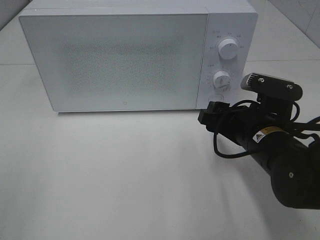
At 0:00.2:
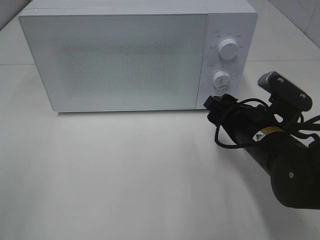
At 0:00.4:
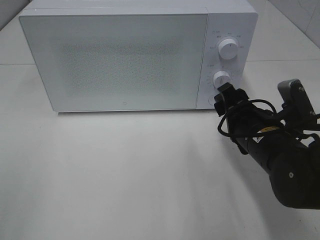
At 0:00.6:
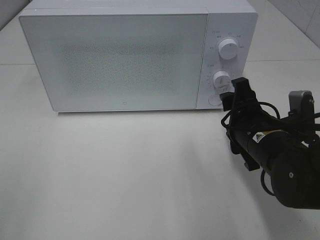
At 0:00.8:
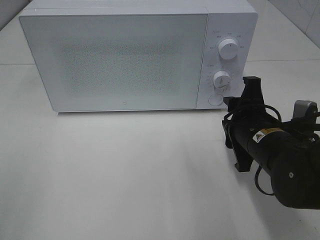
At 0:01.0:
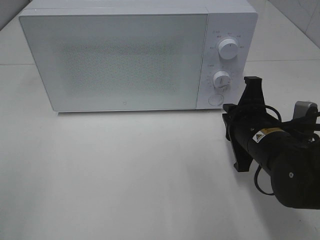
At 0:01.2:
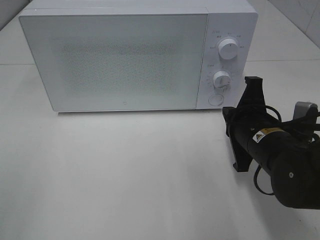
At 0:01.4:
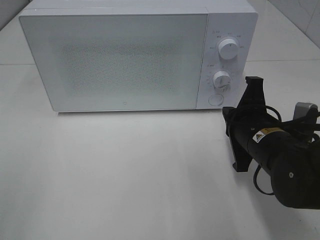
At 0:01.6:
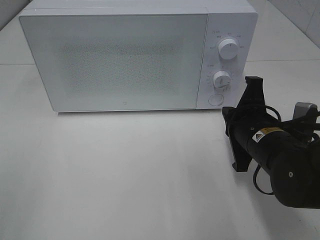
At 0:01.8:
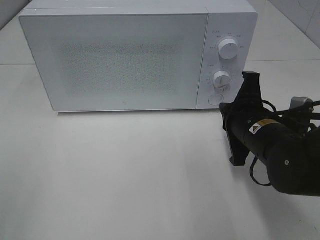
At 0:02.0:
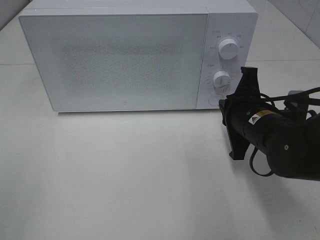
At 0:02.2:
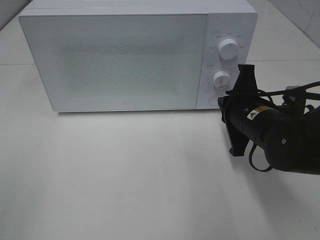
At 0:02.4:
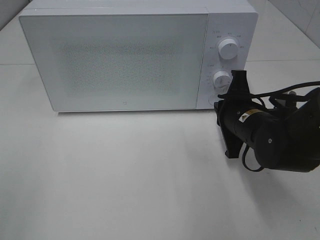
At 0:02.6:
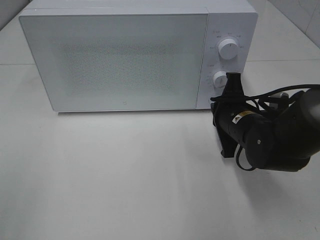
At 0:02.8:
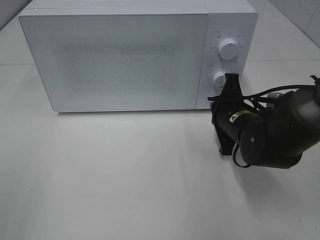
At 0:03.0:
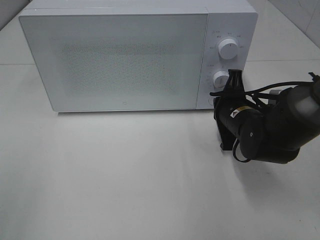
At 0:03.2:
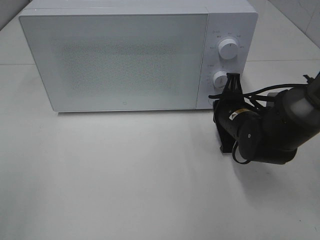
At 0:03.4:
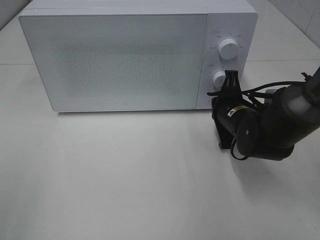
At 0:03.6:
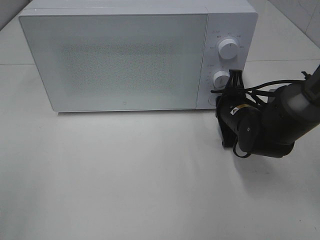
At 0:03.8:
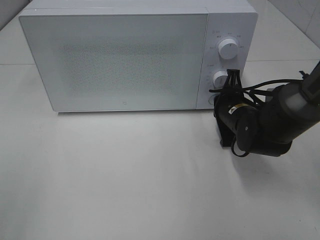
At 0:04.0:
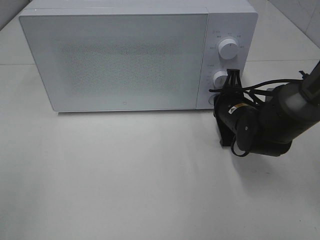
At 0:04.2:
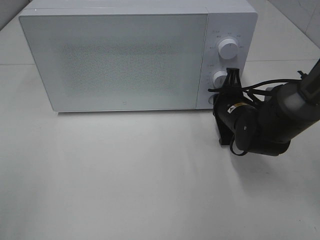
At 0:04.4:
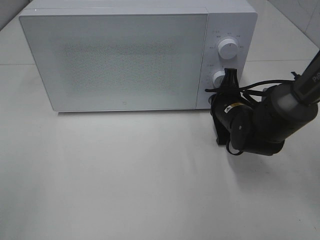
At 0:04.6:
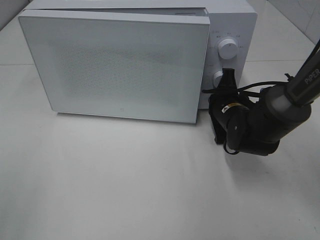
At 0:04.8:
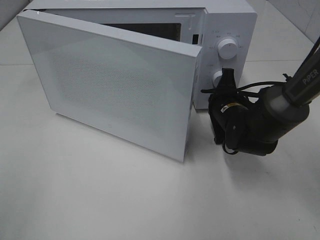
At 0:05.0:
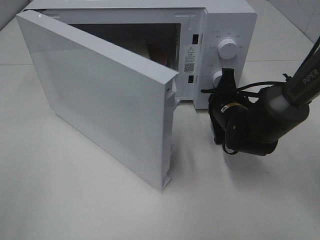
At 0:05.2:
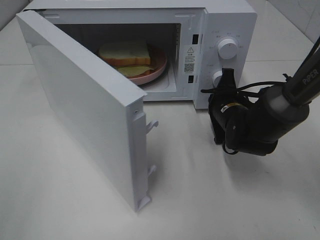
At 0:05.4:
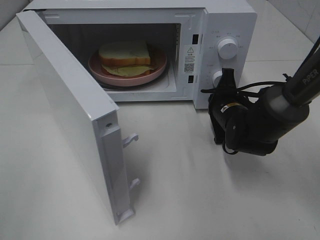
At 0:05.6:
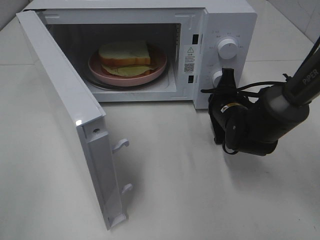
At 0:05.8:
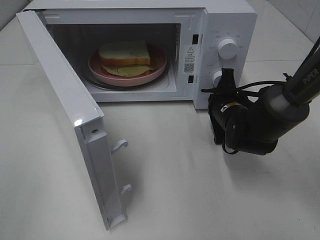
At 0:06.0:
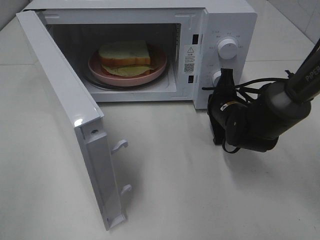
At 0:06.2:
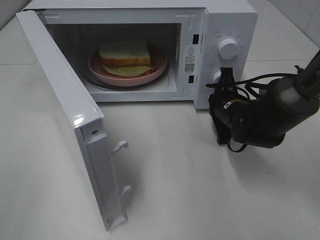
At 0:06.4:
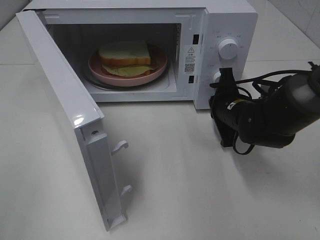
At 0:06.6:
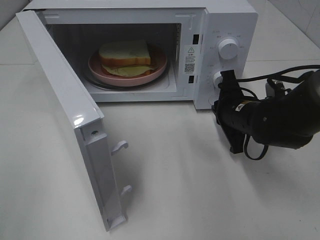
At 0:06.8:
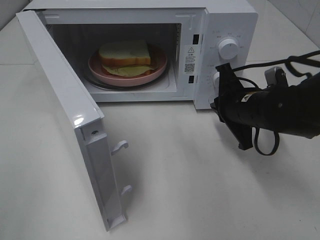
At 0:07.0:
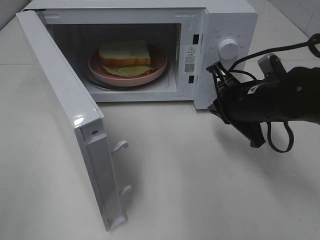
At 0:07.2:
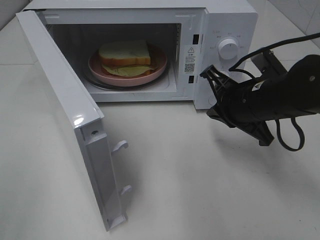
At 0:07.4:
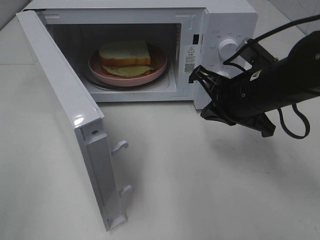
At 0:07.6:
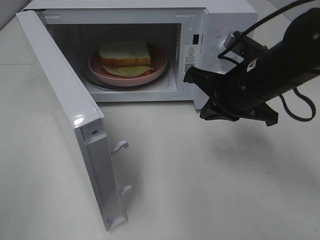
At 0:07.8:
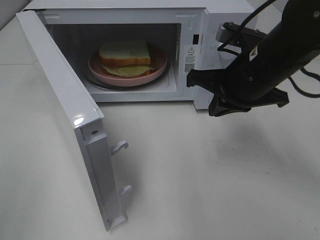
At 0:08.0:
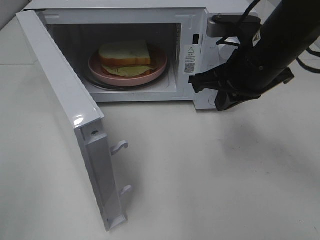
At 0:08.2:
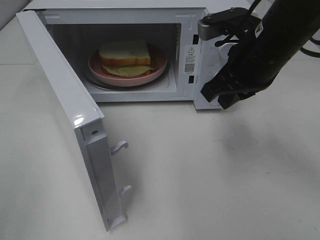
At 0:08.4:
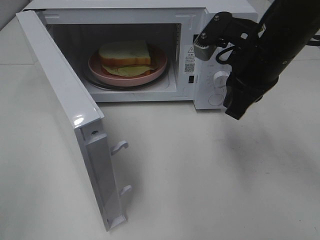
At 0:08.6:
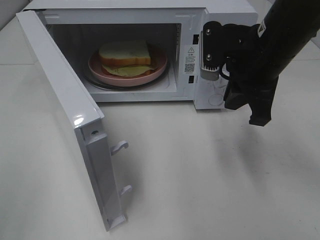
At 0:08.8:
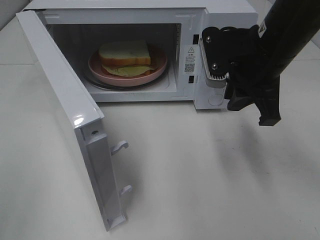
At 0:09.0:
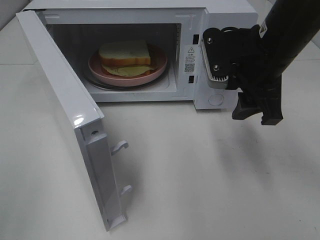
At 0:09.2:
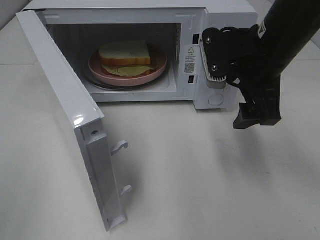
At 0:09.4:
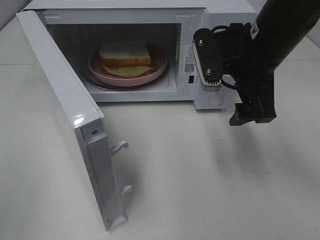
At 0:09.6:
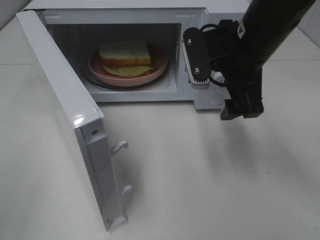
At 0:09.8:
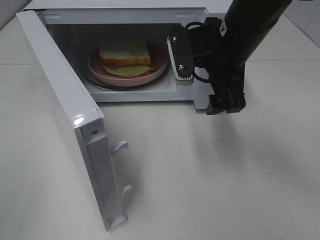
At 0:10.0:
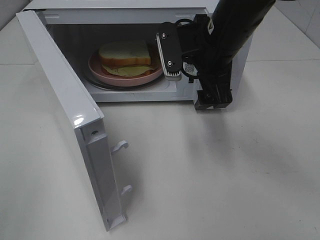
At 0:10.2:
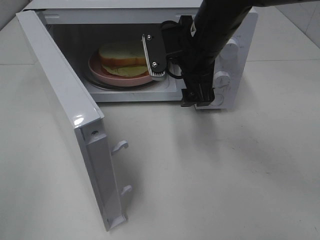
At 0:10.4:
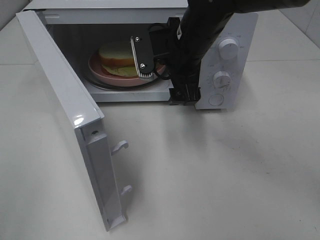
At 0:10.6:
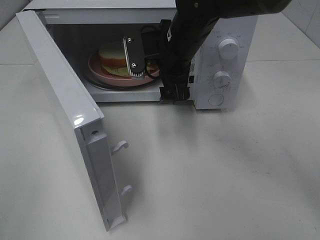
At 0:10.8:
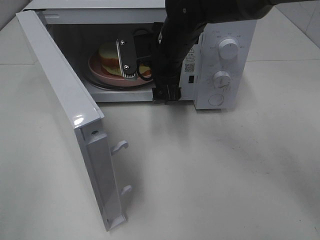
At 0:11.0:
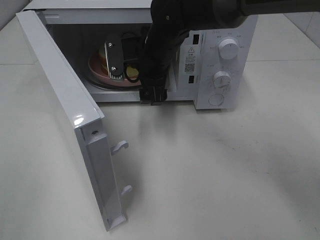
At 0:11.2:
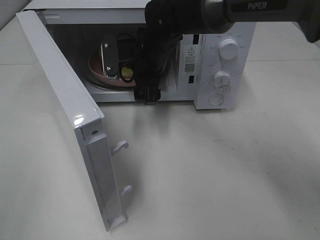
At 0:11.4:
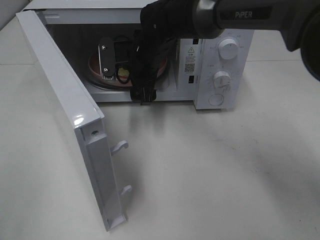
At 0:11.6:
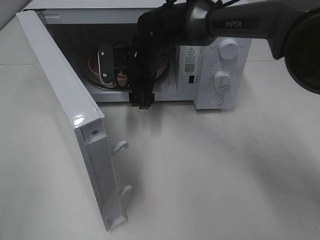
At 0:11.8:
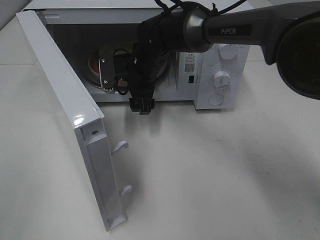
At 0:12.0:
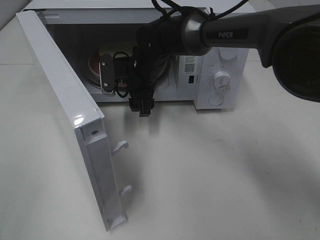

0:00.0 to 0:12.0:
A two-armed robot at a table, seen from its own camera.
Task of the whole recording: Heat Sandwich.
Step, 0:00.0 to 0:06.6: Right hand: press the switch.
0:00.0 to 0:01.6: The right gripper closes its fingers.
0:01.6 to 0:03.0: The right gripper moves forward, roughly 10 cm.
0:03.0 to 0:04.4: The grippers make only small movements.
0:06.0 to 0:07.6: The right gripper moves upward and backward, about 15 cm.
0:07.6 to 0:09.0: The right gripper moves some 5 cm, and opens its fingers.
0:09.0 to 0:10.4: The right gripper moves to the left and forward, some 10 cm.
0:10.4 to 0:12.0: The right gripper shifts approximately 15 cm downward, forward and to the left.

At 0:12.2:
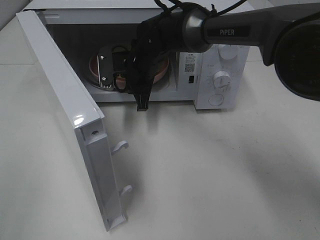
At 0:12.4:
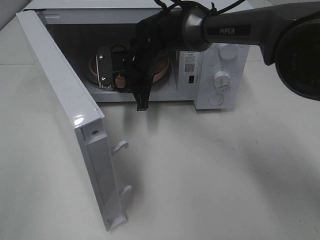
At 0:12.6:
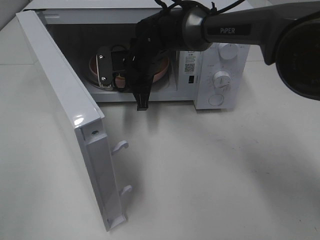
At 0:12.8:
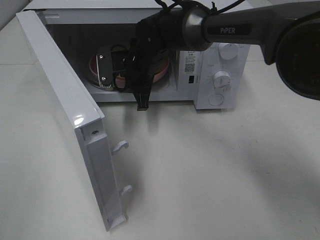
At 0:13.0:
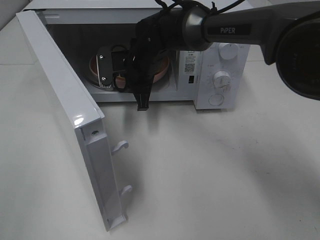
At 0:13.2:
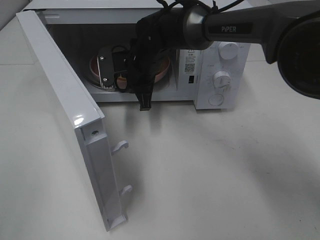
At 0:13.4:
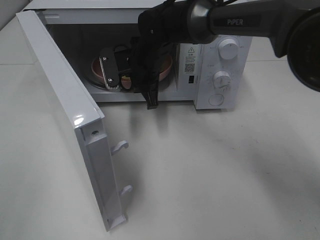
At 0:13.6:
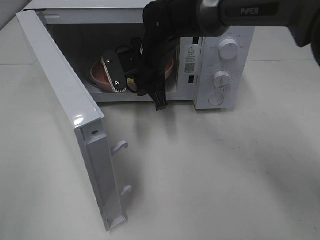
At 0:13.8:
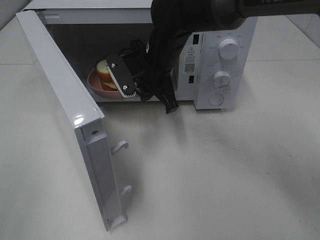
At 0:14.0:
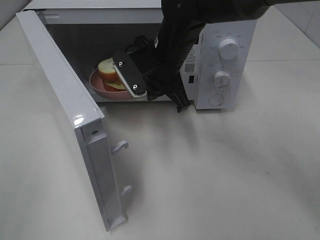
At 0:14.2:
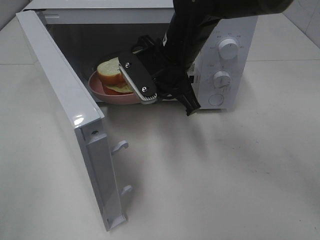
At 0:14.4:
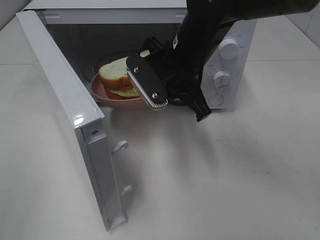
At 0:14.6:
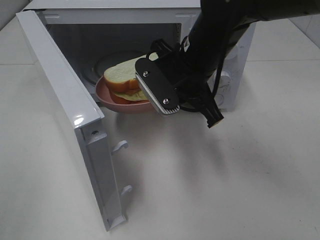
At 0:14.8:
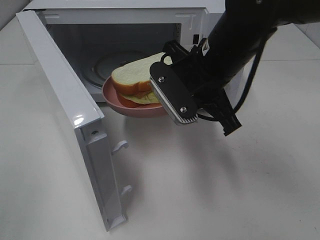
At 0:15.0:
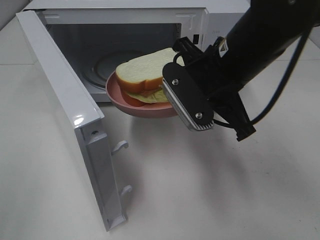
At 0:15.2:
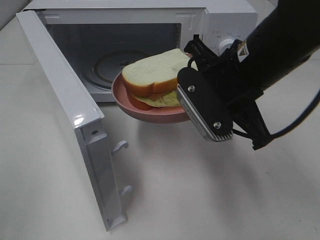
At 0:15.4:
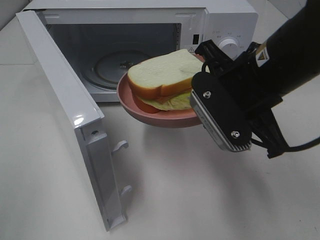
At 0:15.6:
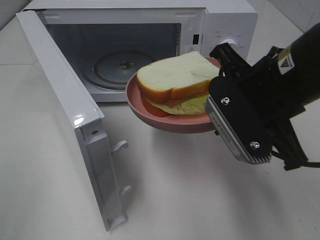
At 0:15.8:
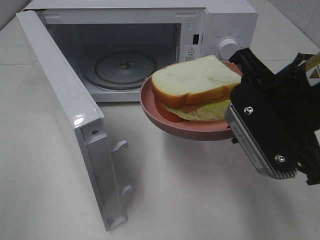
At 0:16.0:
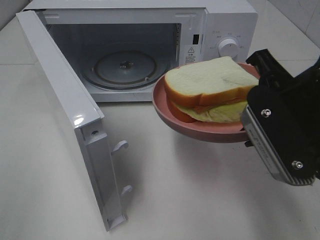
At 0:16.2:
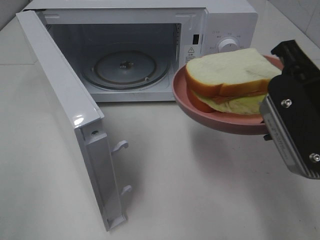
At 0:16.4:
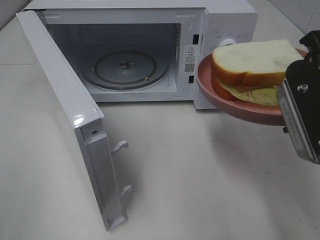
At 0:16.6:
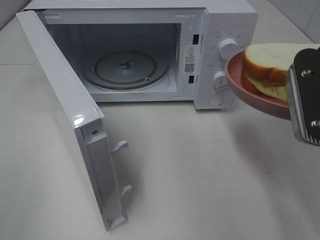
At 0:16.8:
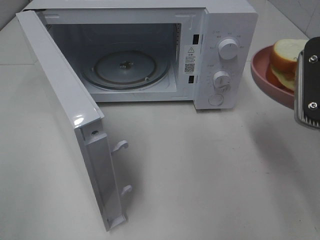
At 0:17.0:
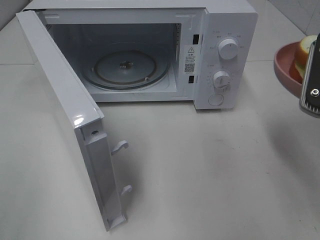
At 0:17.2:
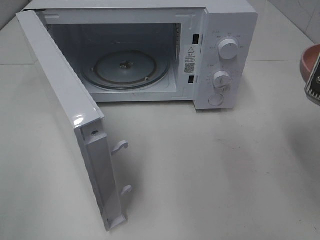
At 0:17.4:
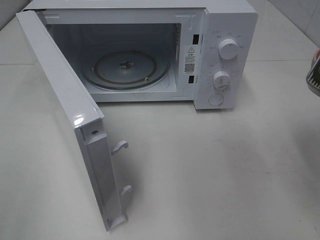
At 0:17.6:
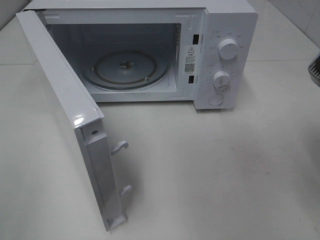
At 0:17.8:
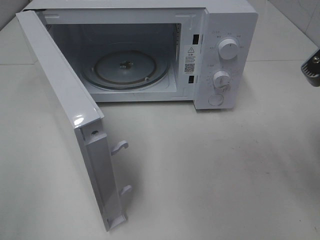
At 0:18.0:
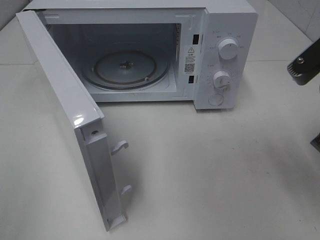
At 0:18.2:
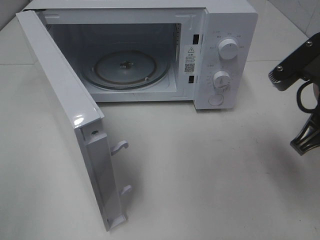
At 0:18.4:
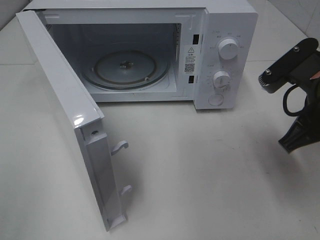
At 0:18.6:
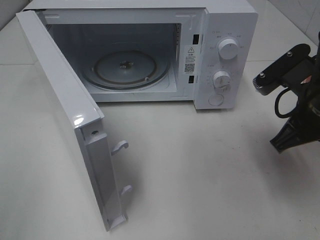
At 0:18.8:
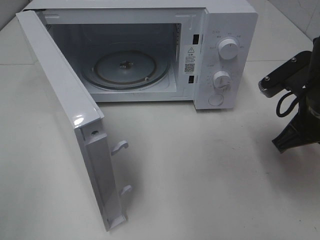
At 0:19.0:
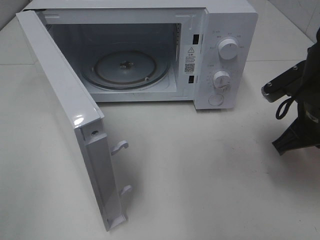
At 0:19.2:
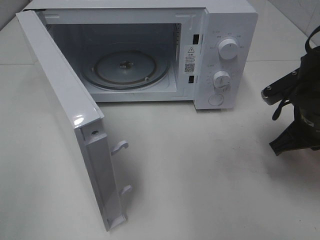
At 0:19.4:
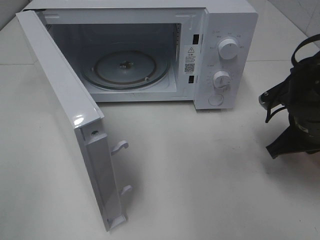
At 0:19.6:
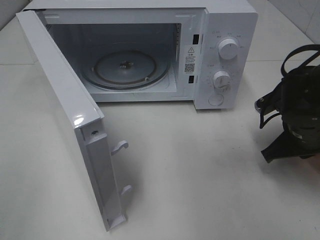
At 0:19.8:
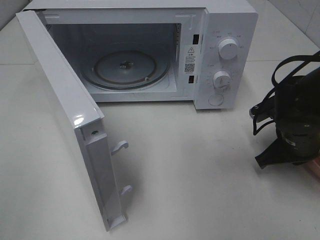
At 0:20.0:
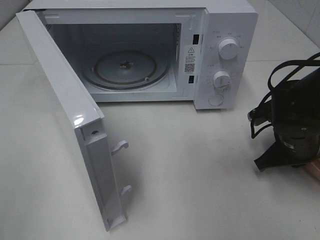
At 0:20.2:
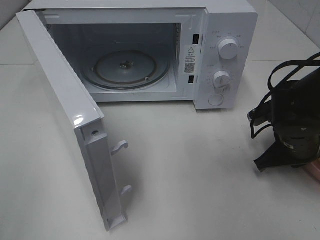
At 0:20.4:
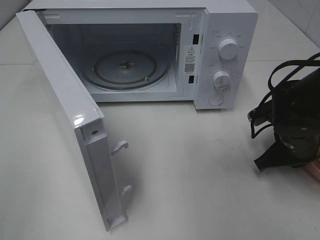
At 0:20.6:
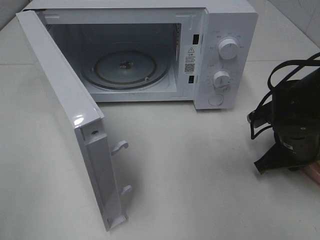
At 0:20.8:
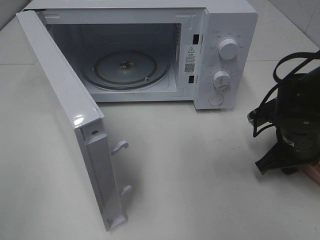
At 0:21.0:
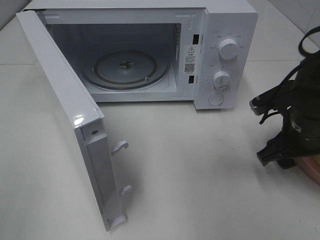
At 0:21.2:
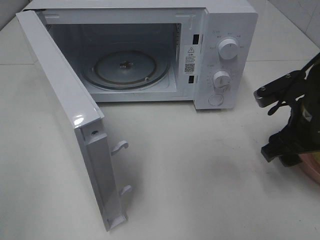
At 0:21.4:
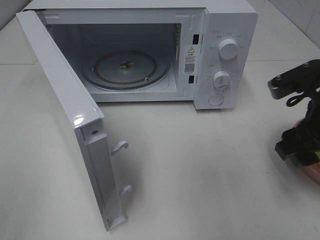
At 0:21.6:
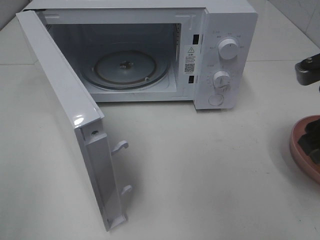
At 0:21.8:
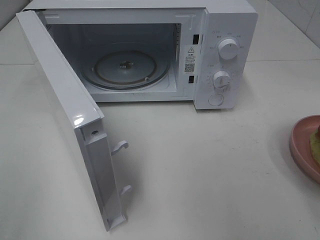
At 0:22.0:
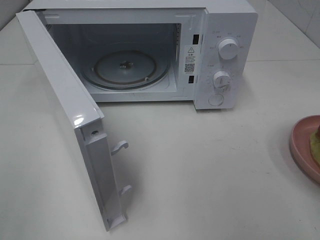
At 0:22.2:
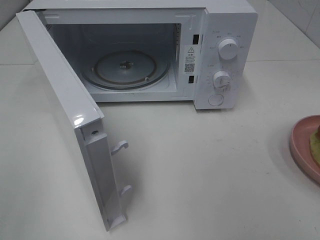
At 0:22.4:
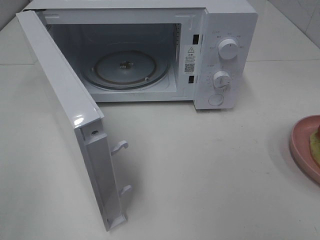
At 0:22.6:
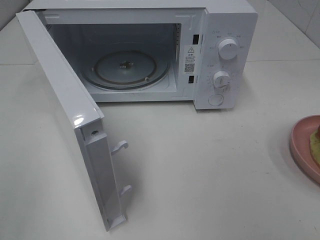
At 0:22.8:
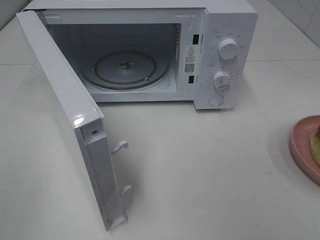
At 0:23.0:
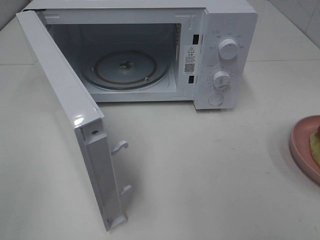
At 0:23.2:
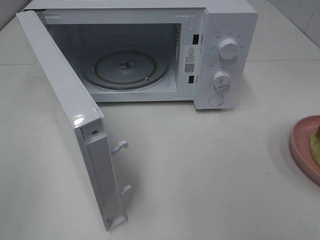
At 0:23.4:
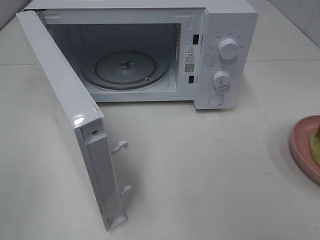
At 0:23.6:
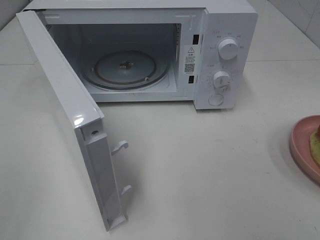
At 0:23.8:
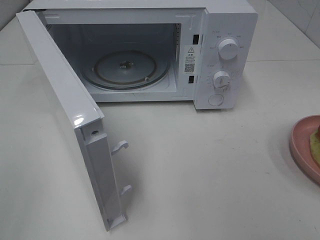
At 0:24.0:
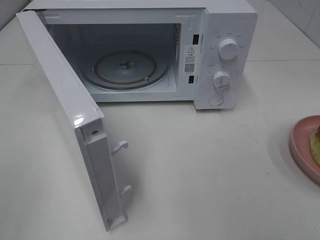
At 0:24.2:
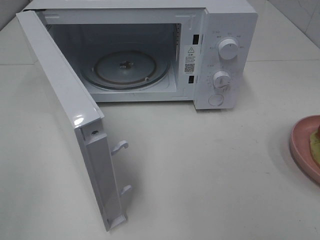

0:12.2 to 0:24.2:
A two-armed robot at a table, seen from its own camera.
Task of the whole recording: Heat Sandwich.
Step, 0:13.0 to 0:21.0: Right hand: place the plate on the table.
0:12.2 to 0:13.8: The right gripper moves roughly 5 cm.
0:13.8 to 0:15.2: The right gripper heads backward, to the right and upward, covering some 20 cm.
0:15.2 to 0:16.6: The right gripper is displaced to the right and backward by approximately 10 cm.
0:16.6 to 0:18.2: The right gripper moves roughly 5 cm.
0:18.2 to 0:19.8: The right gripper travels downward and forward by roughly 15 cm.
0:19.8 to 0:21.2: The right gripper travels upward by roughly 5 cm, and opens its fingers.
0:21.2 to 0:22.6: The right gripper goes approximately 25 cm backward and upward.
